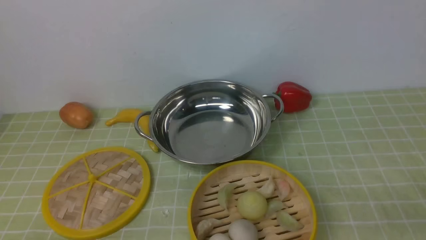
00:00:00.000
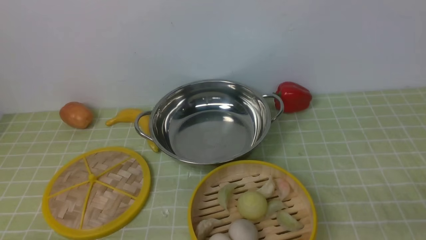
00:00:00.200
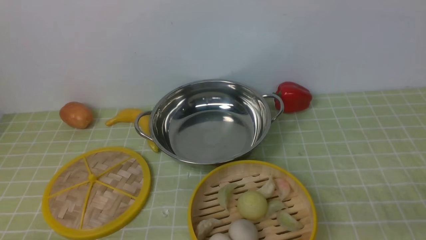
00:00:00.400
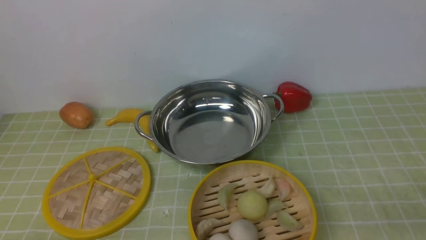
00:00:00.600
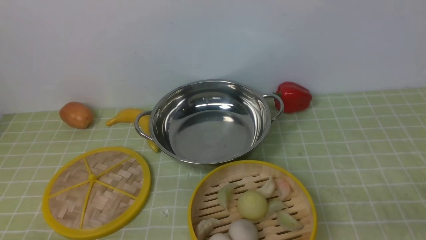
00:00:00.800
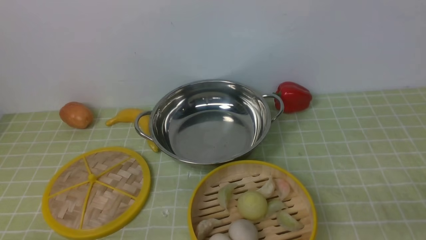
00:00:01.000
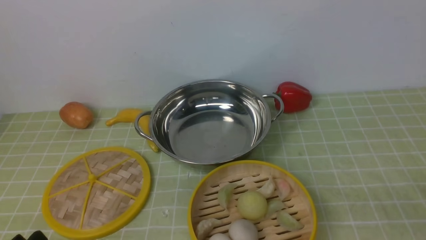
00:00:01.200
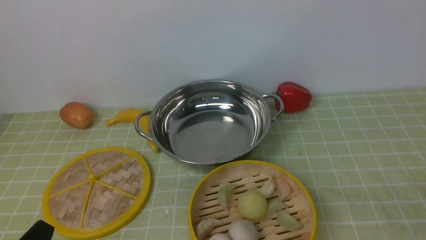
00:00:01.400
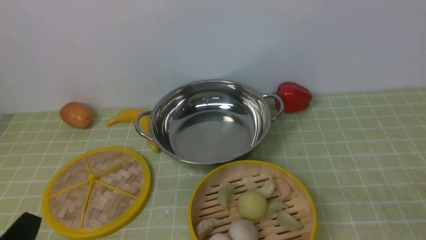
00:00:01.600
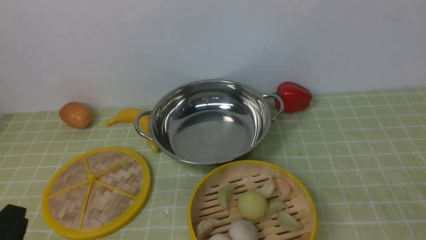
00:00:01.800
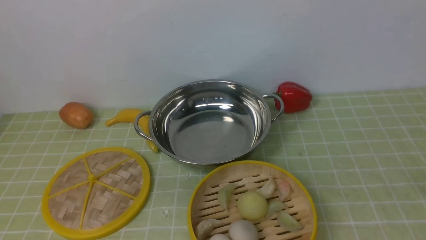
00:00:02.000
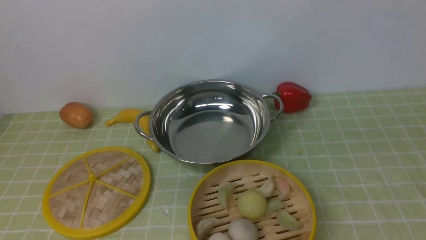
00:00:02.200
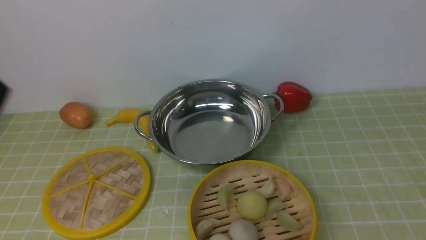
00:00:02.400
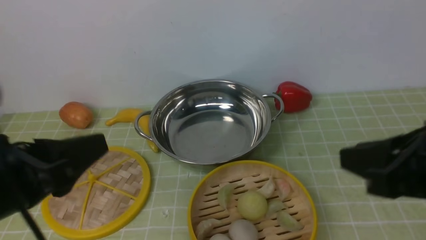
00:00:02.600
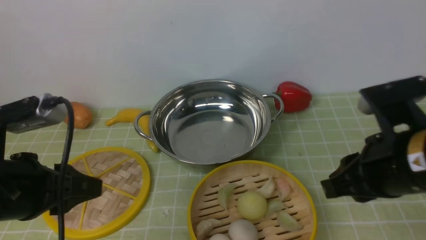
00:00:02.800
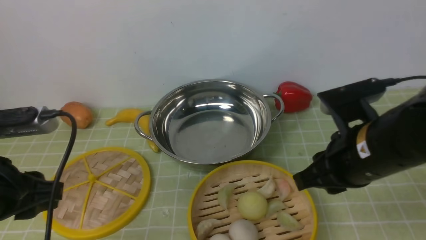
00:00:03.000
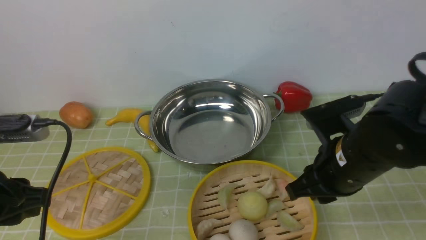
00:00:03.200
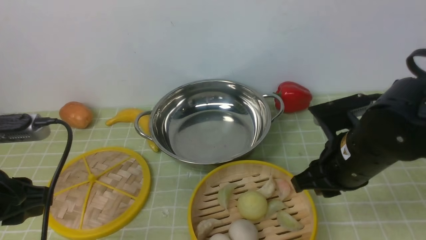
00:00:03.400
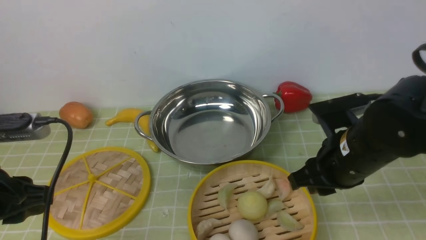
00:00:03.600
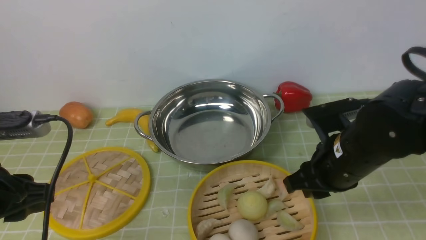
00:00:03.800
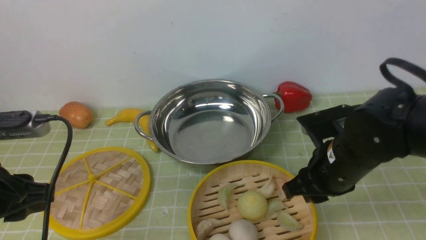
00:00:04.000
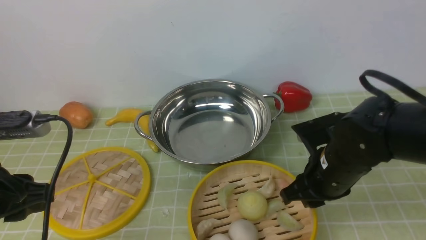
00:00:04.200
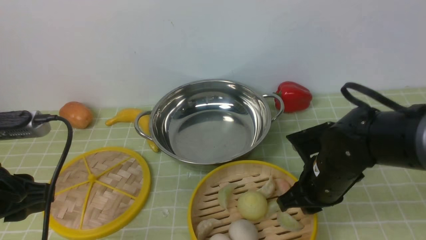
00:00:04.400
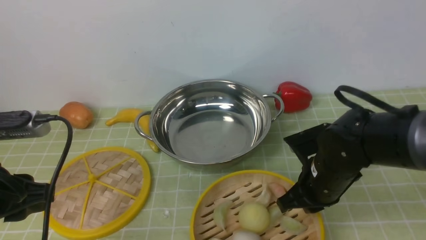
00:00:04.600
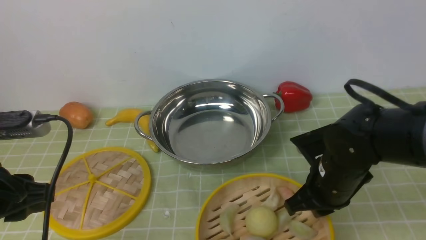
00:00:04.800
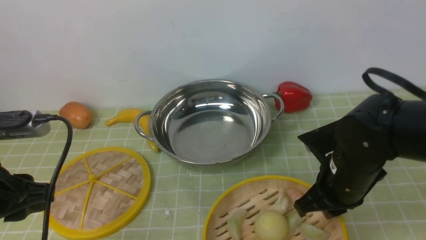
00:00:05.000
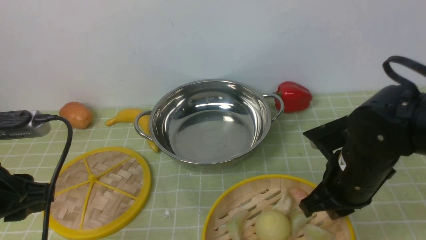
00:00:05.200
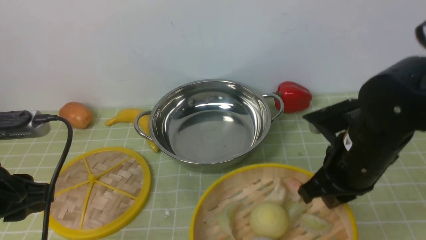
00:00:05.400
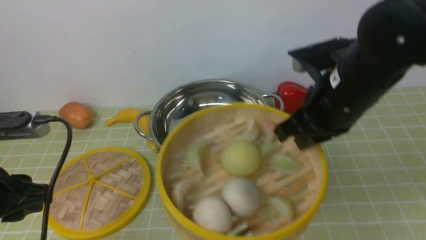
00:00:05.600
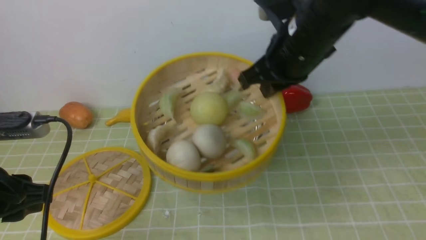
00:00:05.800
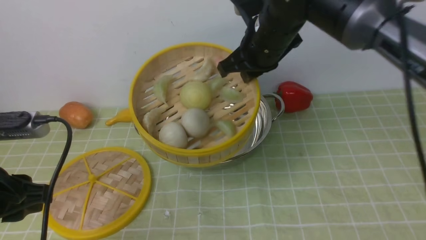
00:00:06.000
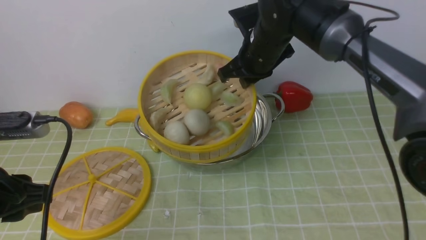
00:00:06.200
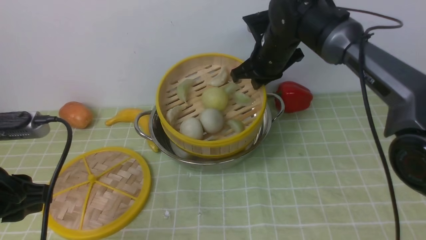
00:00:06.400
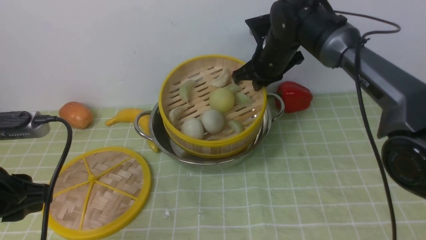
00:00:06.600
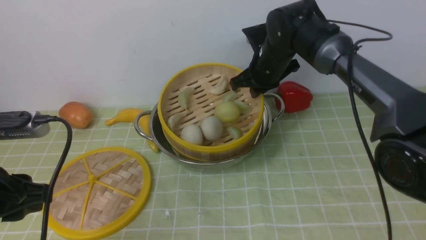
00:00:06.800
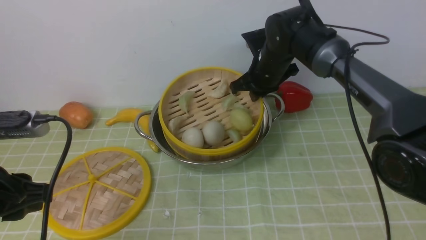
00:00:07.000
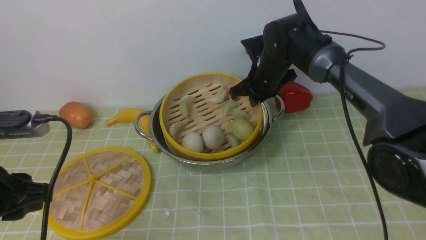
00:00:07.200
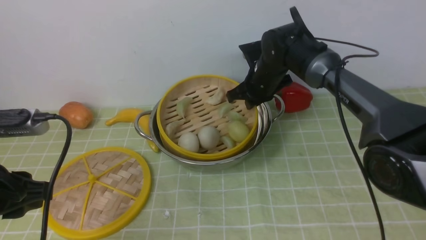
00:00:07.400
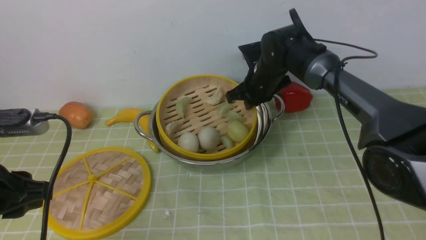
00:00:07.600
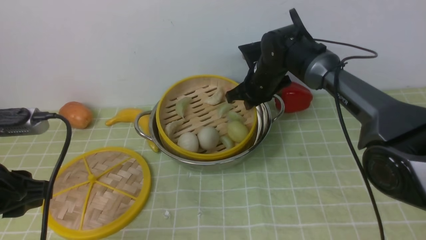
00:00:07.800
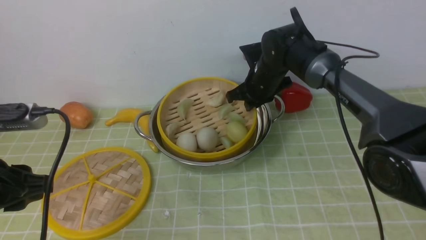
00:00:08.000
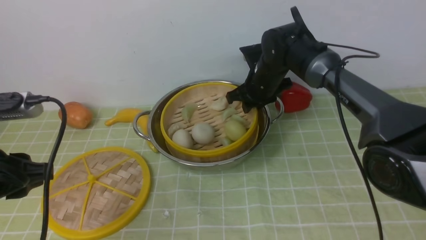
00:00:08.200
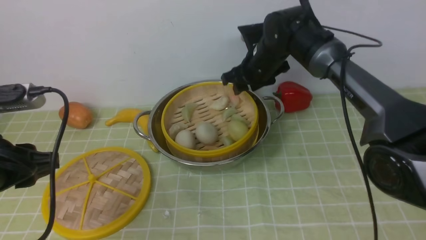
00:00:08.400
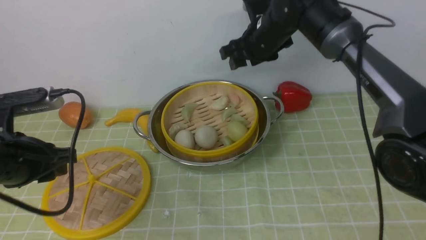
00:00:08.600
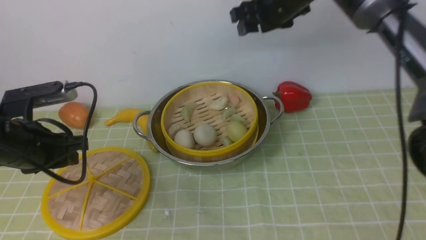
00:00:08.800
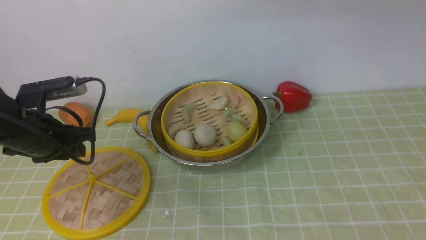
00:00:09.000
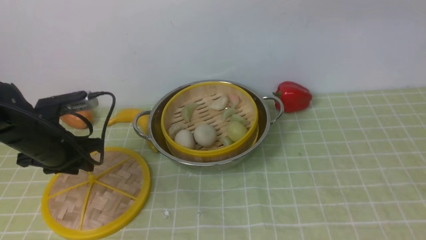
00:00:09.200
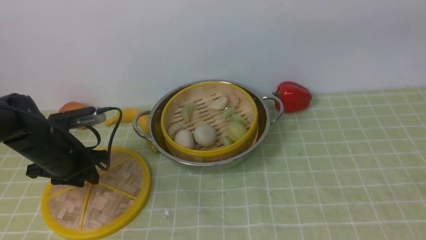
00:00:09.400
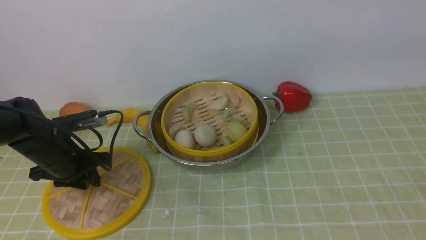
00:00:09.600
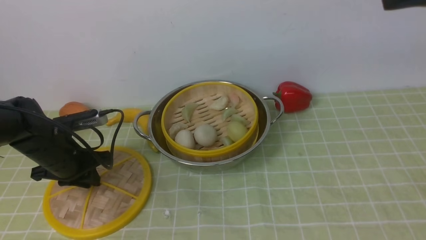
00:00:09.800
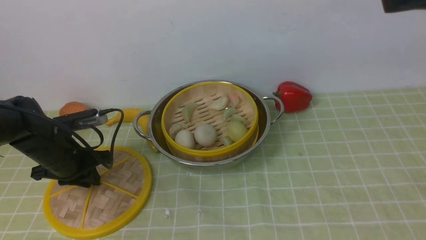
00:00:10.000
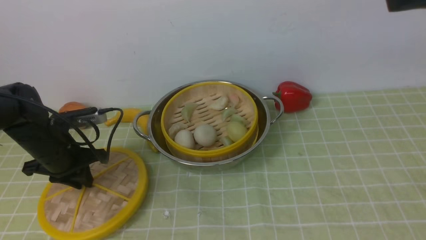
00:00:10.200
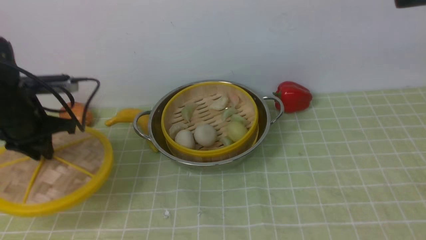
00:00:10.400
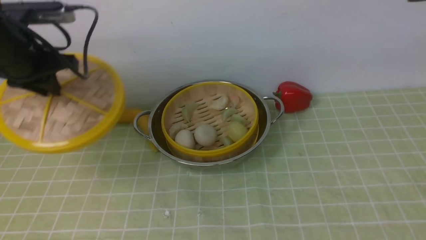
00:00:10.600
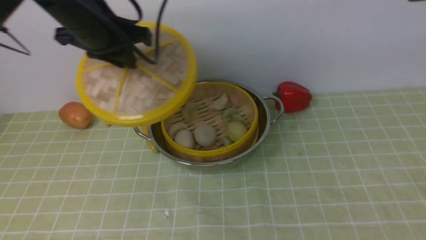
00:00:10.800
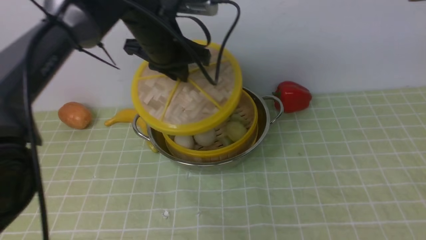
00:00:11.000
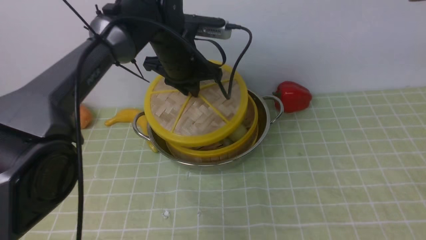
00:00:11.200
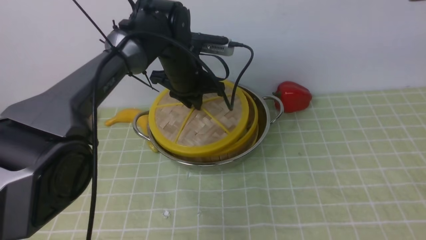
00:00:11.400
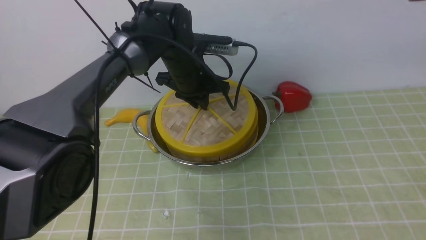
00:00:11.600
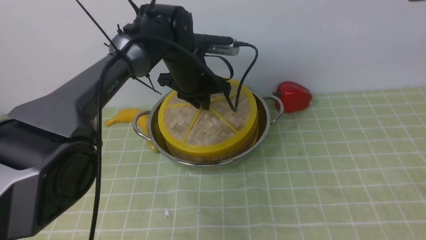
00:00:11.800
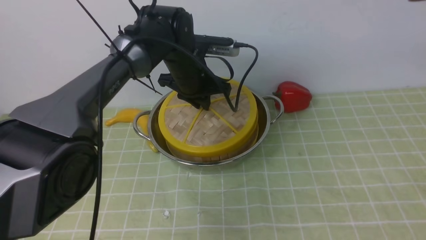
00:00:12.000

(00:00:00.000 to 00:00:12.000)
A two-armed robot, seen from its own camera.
Task of the whole recording: place the steamer in the pot on the green tablecloth, and put the lid on the steamer.
Step, 00:00:00.000 - 00:00:05.800: use the right arm to lift the steamer closest to it.
Step, 00:00:06.000 - 00:00:08.800: use the right arm to put the steamer into the iron steamer pot in the middle.
Step, 00:00:09.000 - 00:00:10.600: use the left arm to lift the lid of the steamer.
00:00:01.600 - 00:00:03.000: The right gripper shifts about 20 cm forward, to the left and upward. Meanwhile the left gripper goes approximately 15 cm forward and upward.
00:00:03.000 - 00:00:04.400: The right gripper shifts approximately 10 cm downward and forward.
00:00:04.400 - 00:00:06.000: The right gripper shifts about 20 cm upward, forward and to the left.
00:00:06.000 - 00:00:07.600: The right gripper shifts approximately 20 cm downward and forward.
00:00:07.600 - 00:00:09.000: The right gripper travels upward by roughly 25 cm, and opens its fingers. The left gripper moves forward and downward, some 15 cm.
00:00:09.000 - 00:00:10.400: The left gripper shifts some 5 cm forward, moves roughly 10 cm downward and comes back, and closes its fingers. The right gripper heads backward and to the right, covering roughly 25 cm.
00:00:10.400 - 00:00:12.000: The left gripper goes about 25 cm to the right and forward.

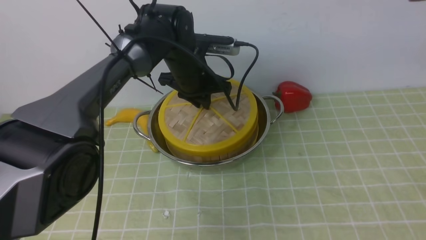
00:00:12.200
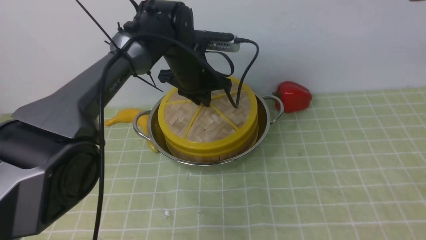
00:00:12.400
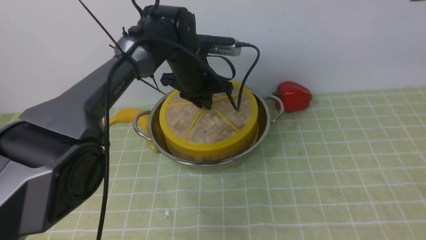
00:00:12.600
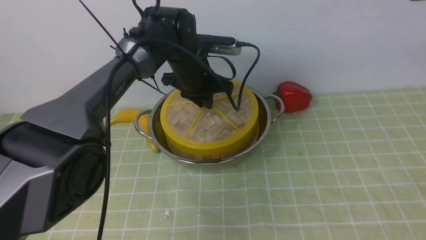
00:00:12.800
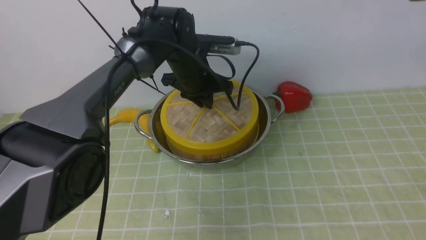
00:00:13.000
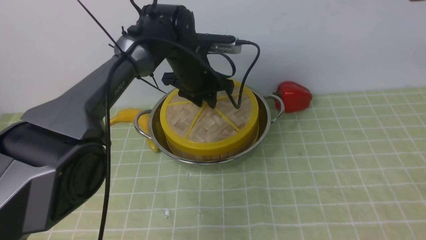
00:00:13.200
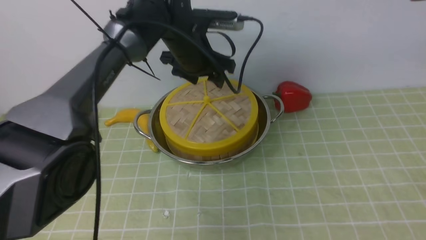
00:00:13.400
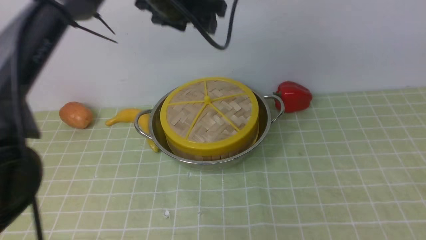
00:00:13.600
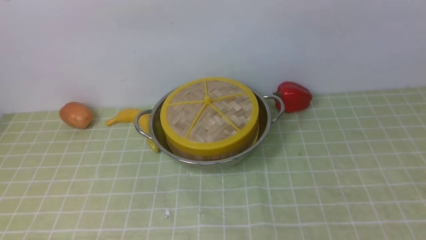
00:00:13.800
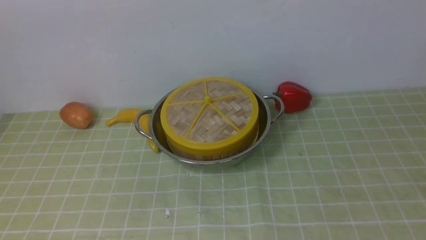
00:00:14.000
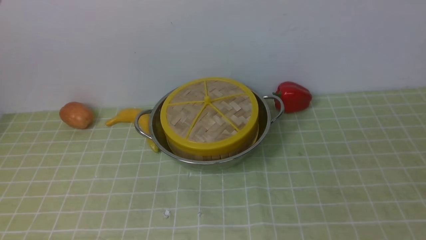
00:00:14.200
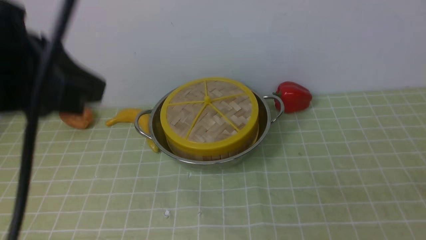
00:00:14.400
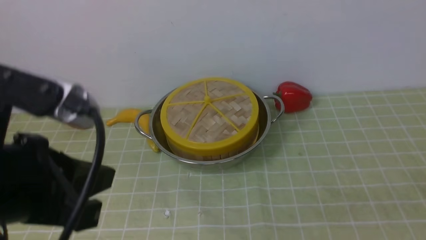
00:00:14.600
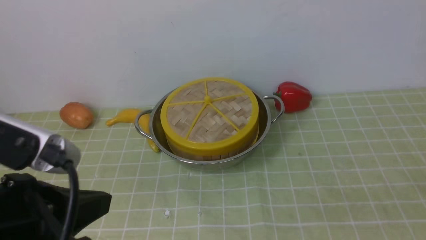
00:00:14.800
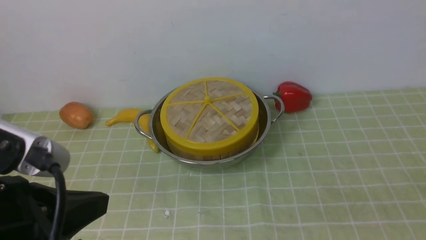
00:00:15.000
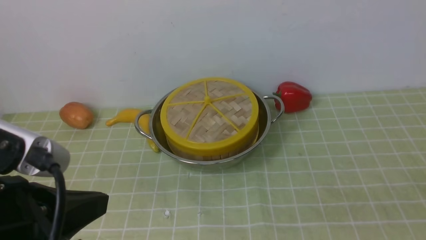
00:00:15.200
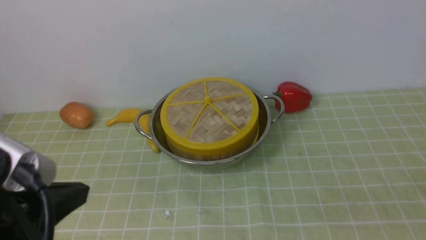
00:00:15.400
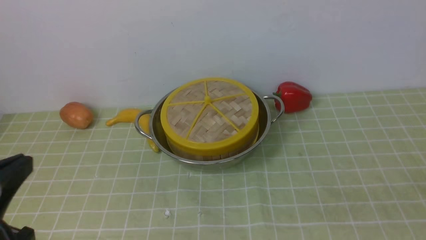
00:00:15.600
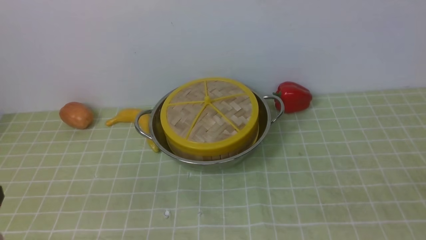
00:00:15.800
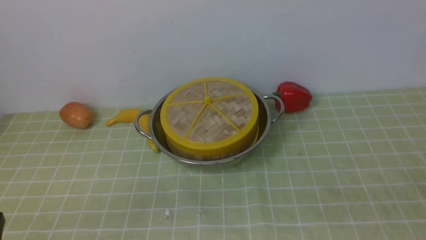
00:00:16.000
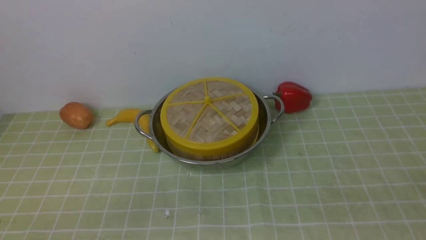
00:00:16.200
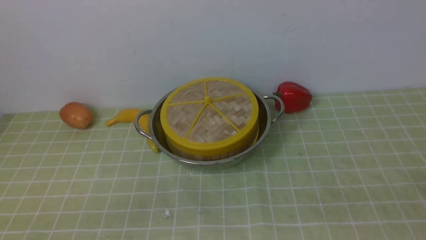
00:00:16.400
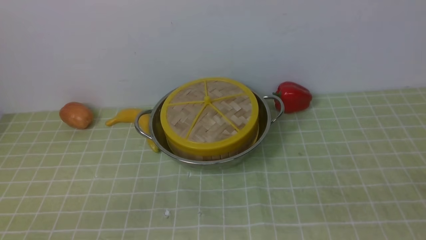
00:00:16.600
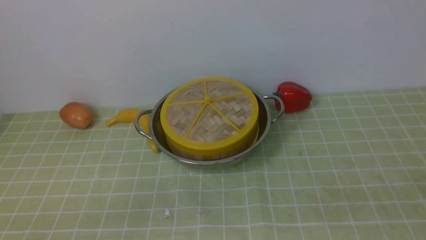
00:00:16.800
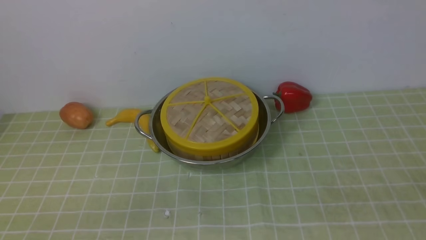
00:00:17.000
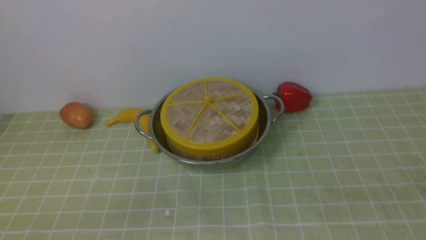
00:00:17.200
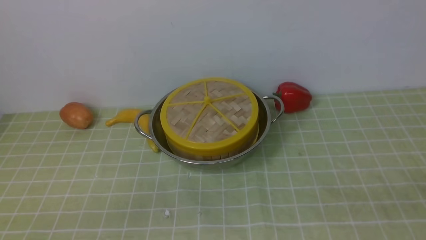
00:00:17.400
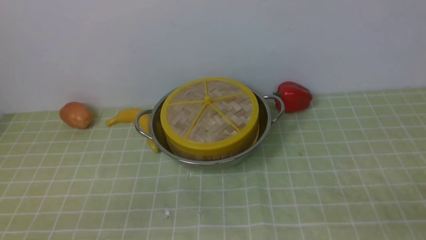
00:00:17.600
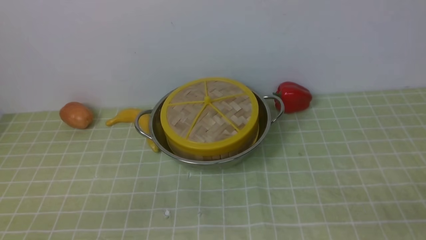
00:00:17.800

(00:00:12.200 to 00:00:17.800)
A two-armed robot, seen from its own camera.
Task of the whole recording: place the steamer in the pot on the green tablecloth, and put the lid on the steamer.
Step, 00:00:12.200 - 00:00:13.800: use the left arm to place the steamer lid on the steamer.
00:00:12.200 - 00:00:13.600: The left gripper is displaced upward by approximately 15 cm, and opens its fingers.
00:00:13.600 - 00:00:15.000: The right gripper is displaced downward and backward by approximately 25 cm, and closes; the left gripper heads backward, covering roughly 35 cm, and closes.
00:00:15.000 - 00:00:16.400: The left gripper is displaced downward and to the left by about 15 cm.
